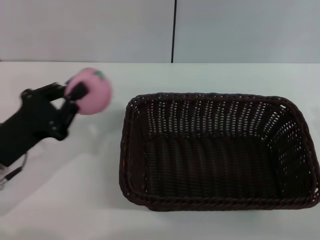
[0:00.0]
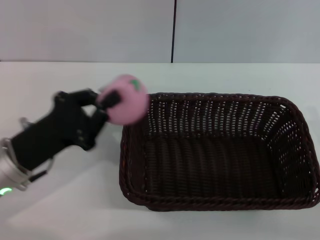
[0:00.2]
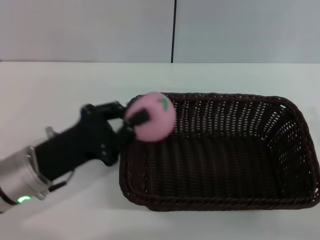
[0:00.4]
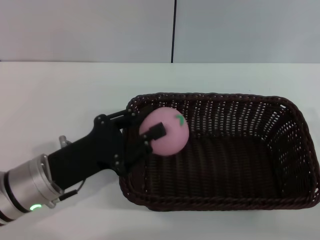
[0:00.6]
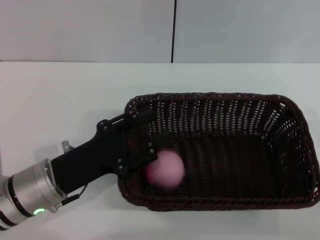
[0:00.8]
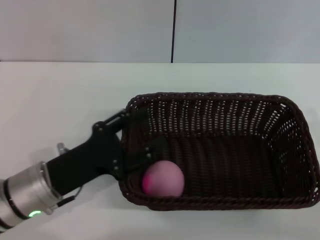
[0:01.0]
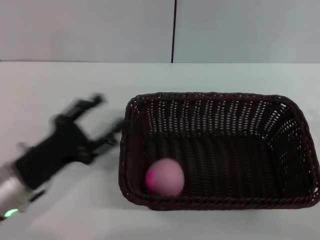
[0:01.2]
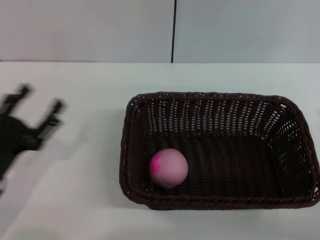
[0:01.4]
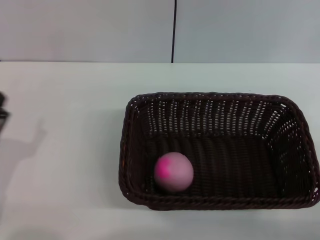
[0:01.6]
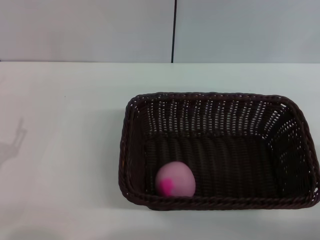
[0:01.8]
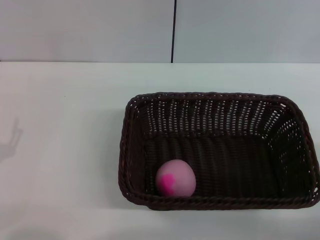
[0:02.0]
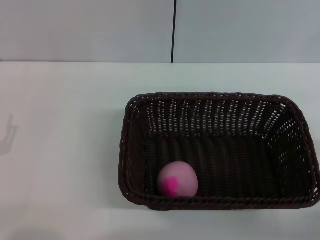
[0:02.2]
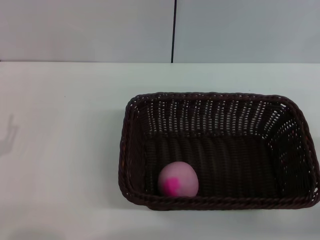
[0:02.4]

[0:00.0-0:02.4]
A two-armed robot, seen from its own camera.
Step, 0:00.0 to 0:01.2: Place the peach into the basket with the left gripper.
0:00.0 to 0:01.2: The left gripper opens.
0:01.2 to 0:02.4: The left gripper shifts approximately 5 cm to the left.
